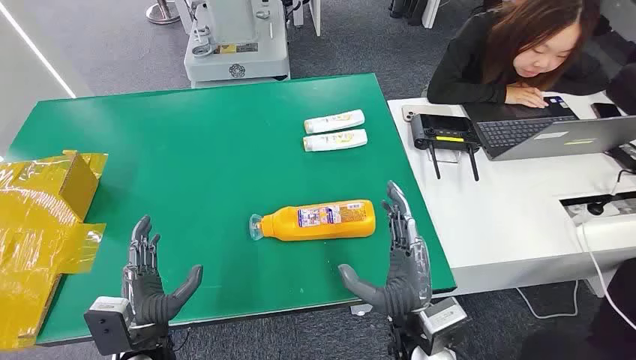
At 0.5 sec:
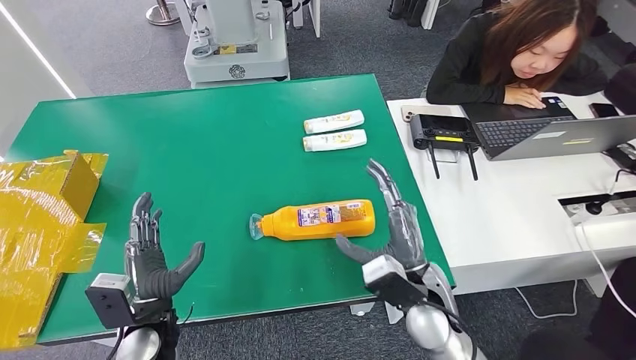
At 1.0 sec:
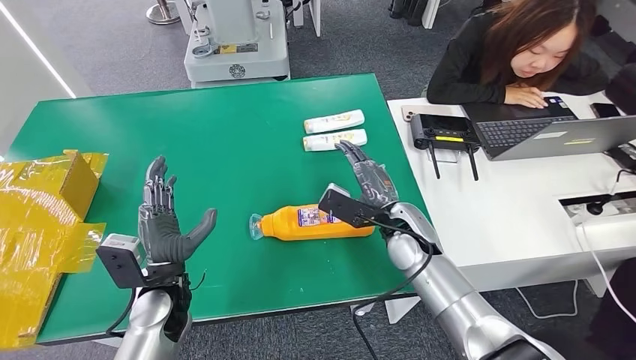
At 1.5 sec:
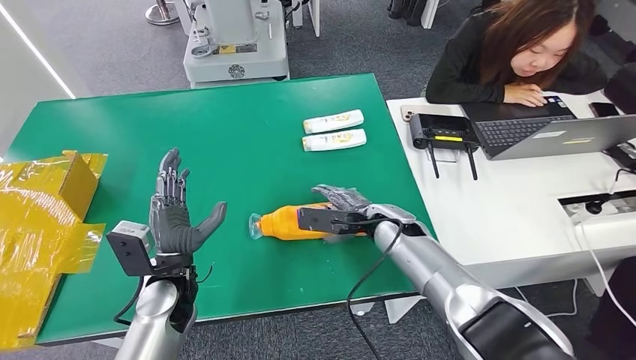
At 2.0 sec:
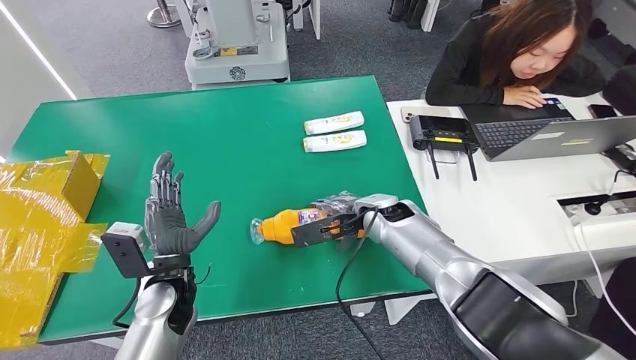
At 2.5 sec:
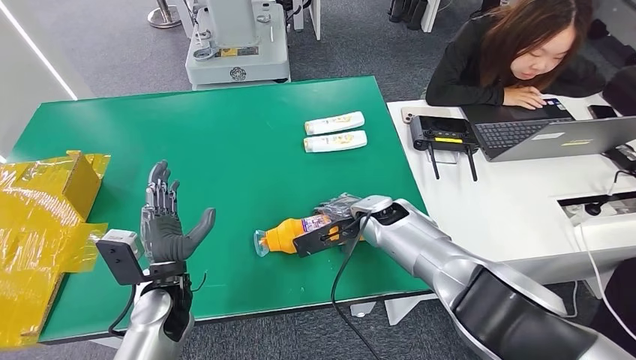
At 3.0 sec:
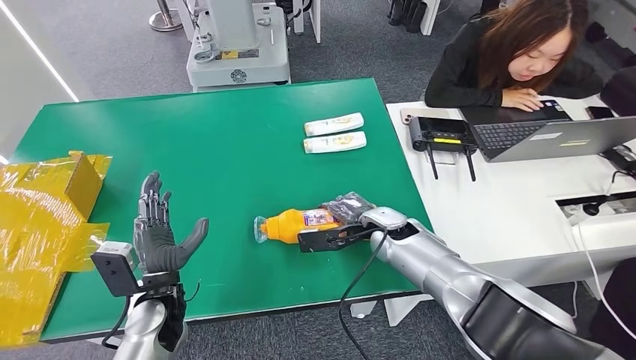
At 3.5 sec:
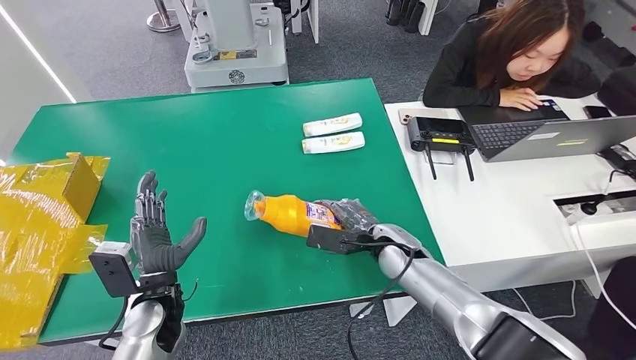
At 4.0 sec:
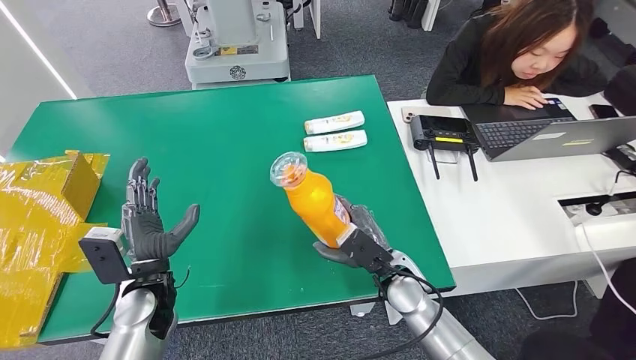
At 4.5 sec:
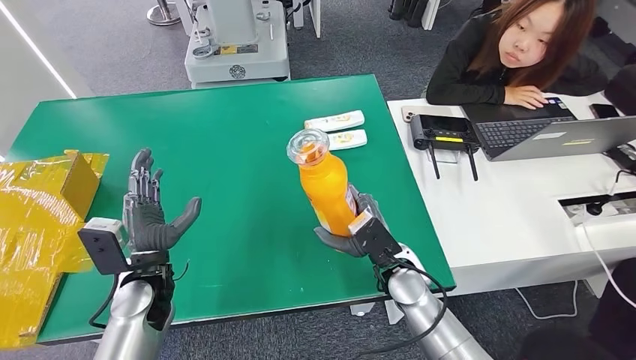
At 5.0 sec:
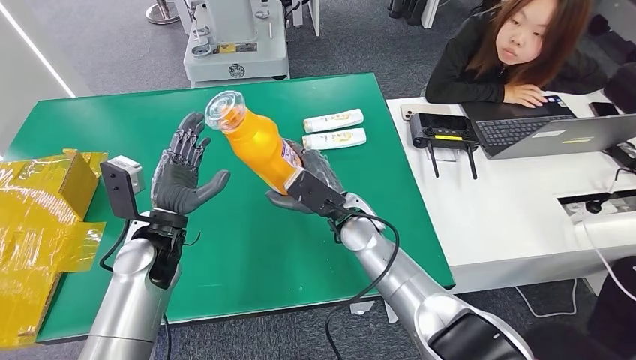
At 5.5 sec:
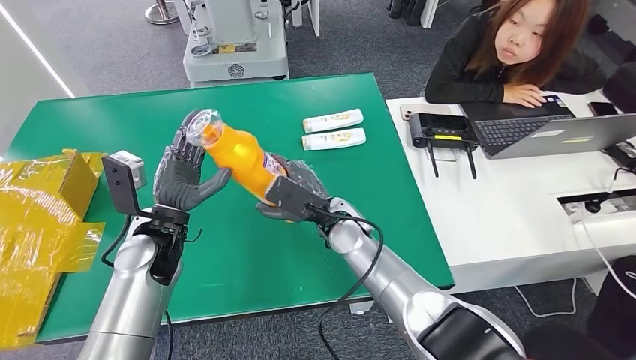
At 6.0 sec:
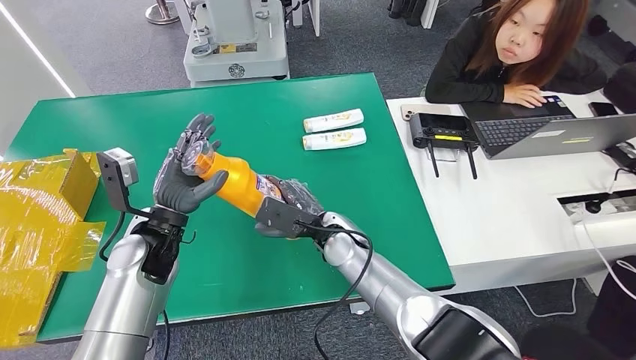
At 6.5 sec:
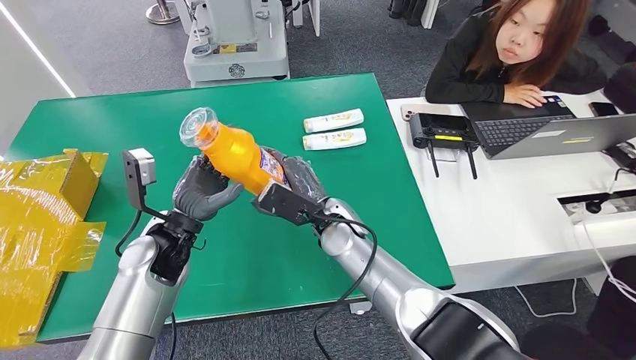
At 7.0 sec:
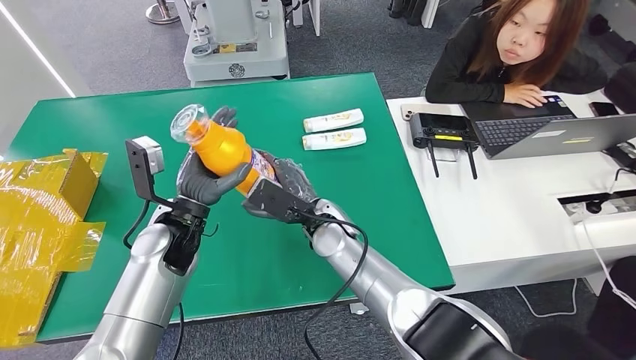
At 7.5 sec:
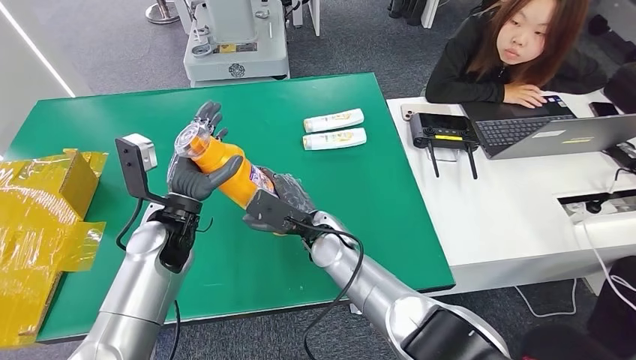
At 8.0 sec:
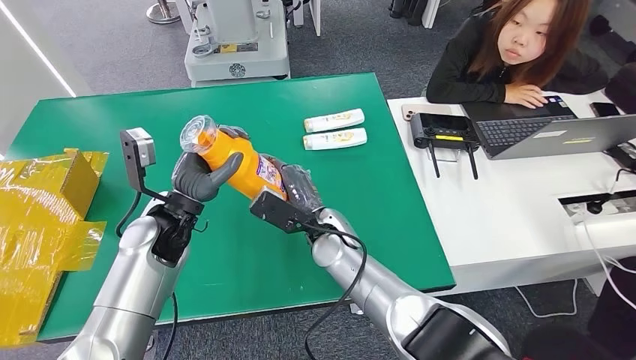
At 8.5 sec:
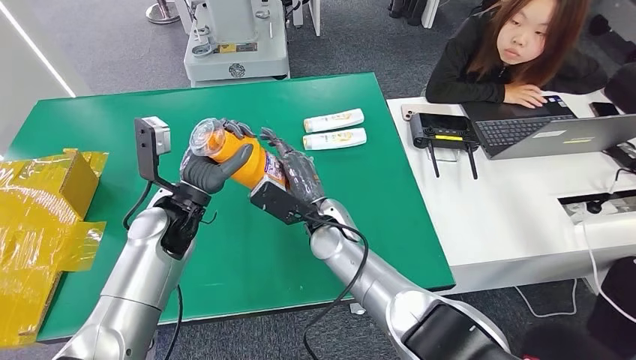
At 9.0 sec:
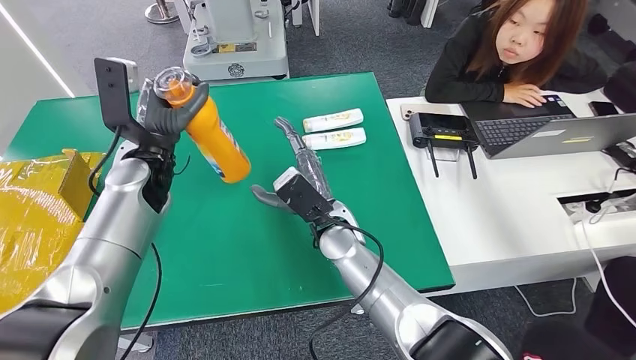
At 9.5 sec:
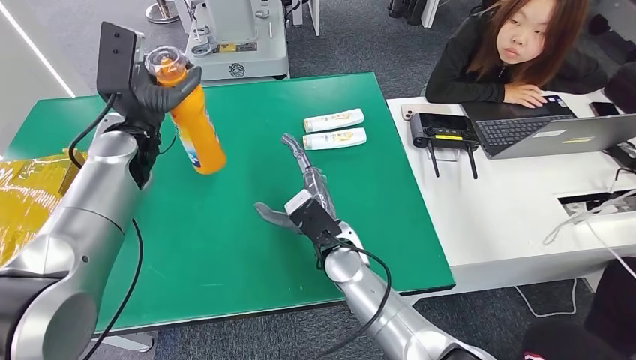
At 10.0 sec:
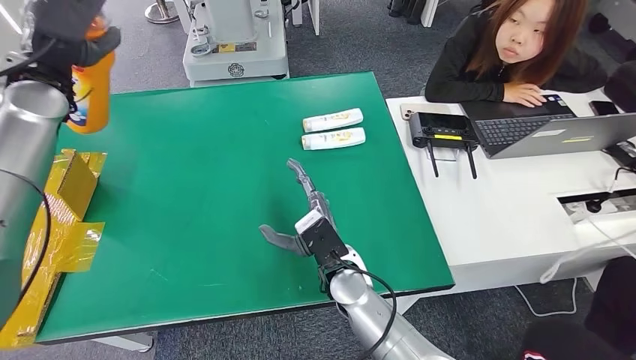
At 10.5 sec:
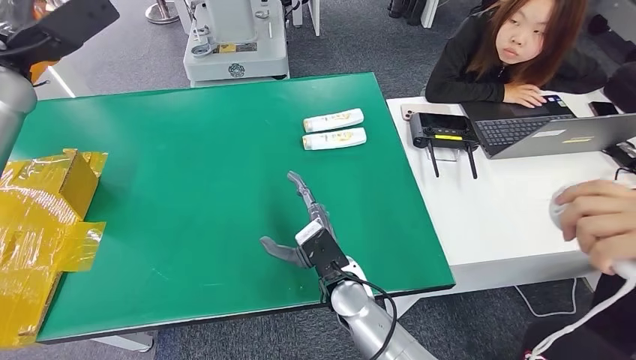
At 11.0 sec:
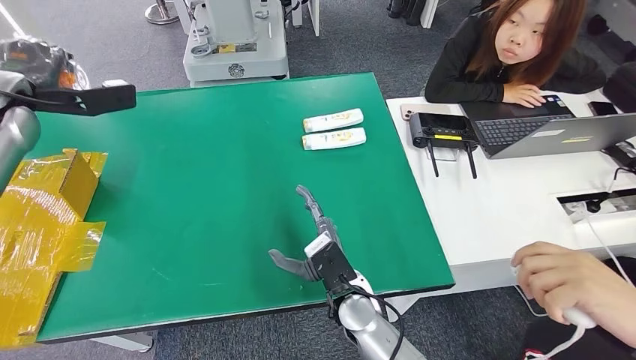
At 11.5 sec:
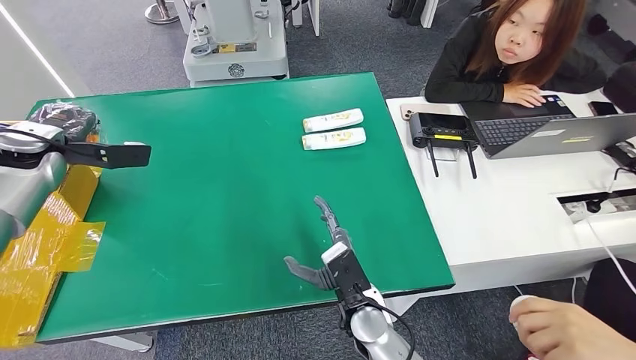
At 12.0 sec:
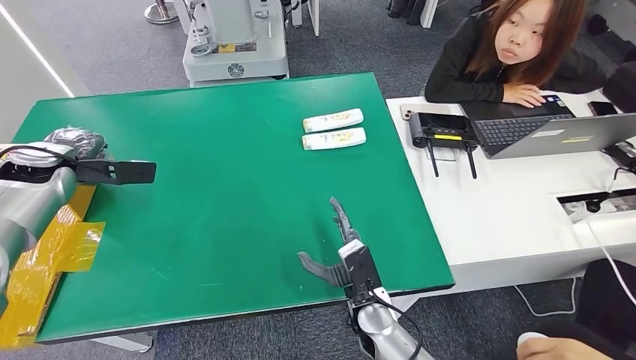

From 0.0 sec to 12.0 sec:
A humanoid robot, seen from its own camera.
Step, from 0.0 sec to 4.0 sec: Pick up the bottle from the table.
From 2.0 sec to 4.0 sec: The right hand is displaced backward and downward by some 15 cm.
From 6.0 sec to 8.0 sec: The hands make only small movements.
From 10.0 sec to 12.0 sec: The left hand moves downward and to the left, some 15 cm, while the right hand is displaced downward and backward by approximately 10 cm.

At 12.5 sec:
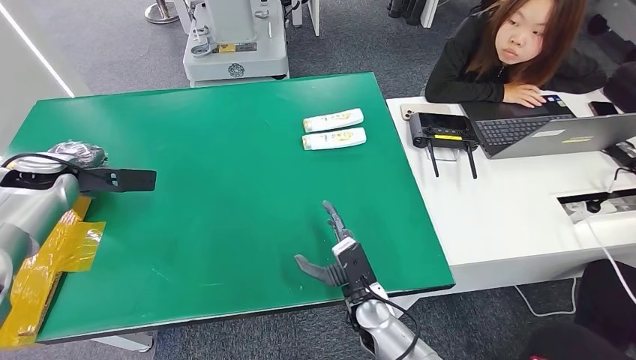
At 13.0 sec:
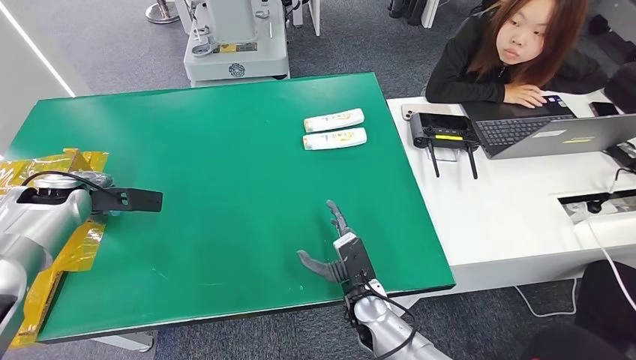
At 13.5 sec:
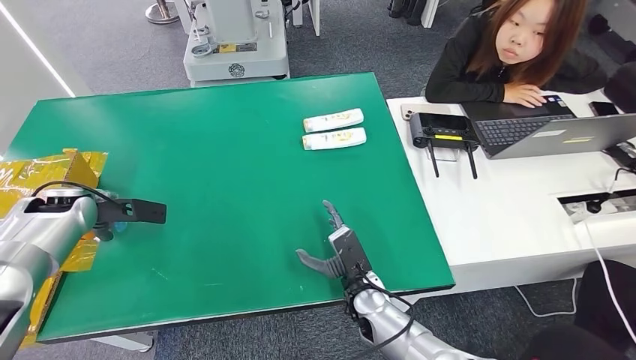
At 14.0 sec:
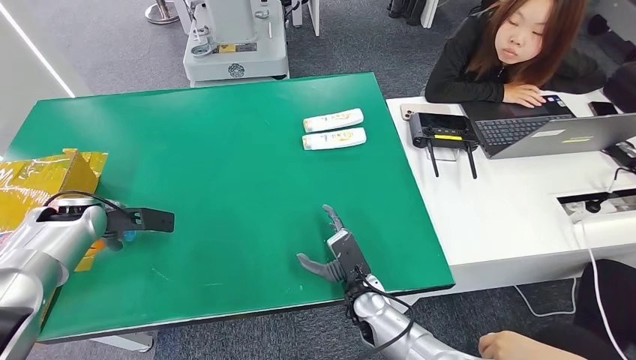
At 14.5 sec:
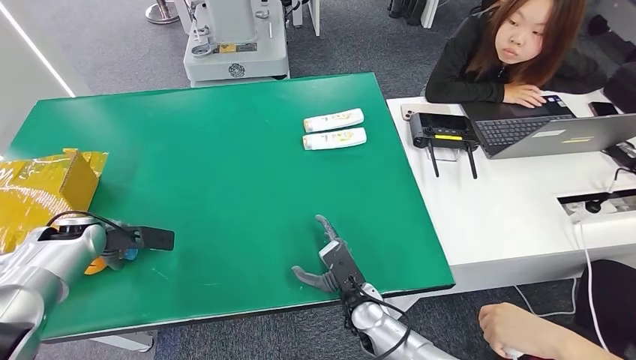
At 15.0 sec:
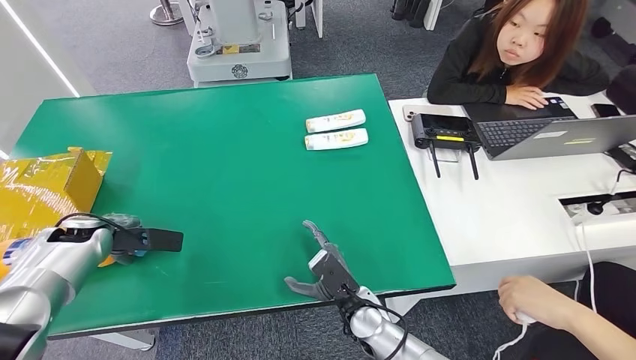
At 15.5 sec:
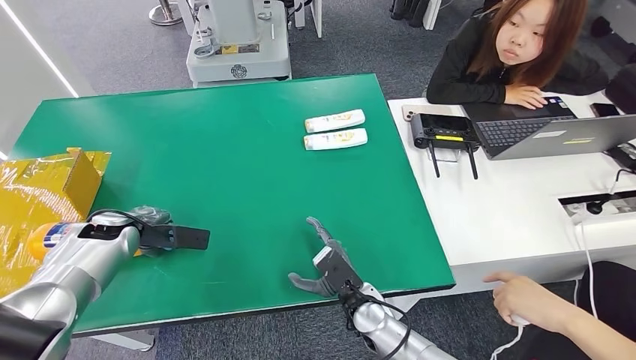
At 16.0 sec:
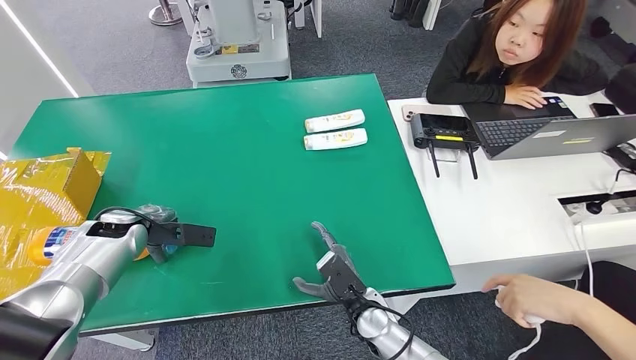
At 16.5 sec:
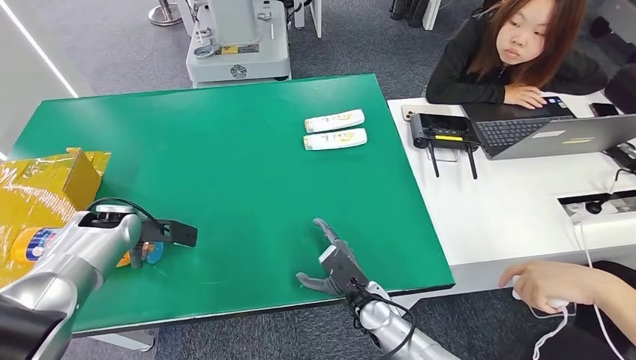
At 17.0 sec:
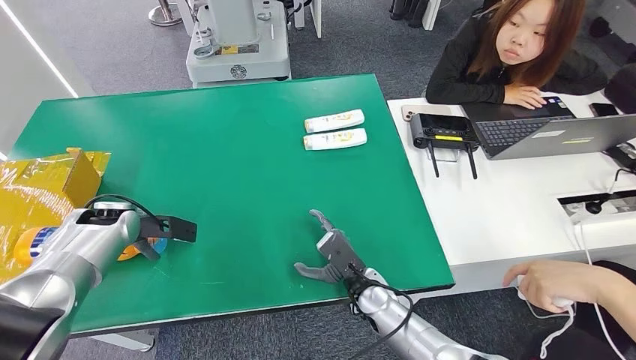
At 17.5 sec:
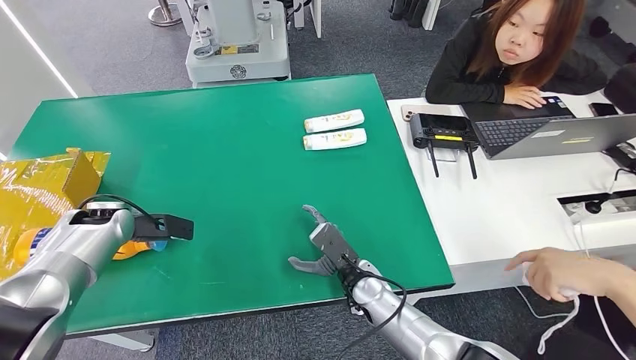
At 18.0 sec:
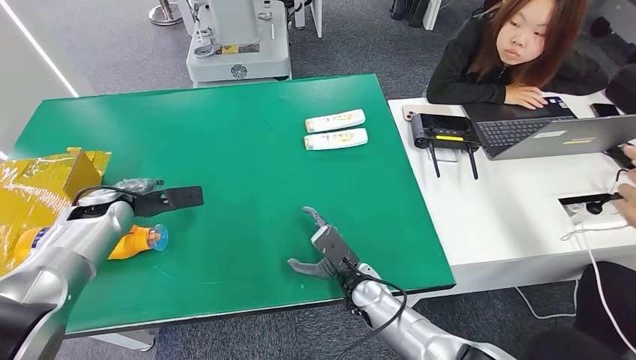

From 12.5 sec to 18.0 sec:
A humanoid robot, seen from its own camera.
Step, from 12.5 sec to 18.0 sec: Turn the bottle to the front side.
From 12.5 sec to 14.5 sec: The left hand goes about 10 cm downward.
From 14.5 sec to 16.0 sec: The left hand moves to the right, about 10 cm.

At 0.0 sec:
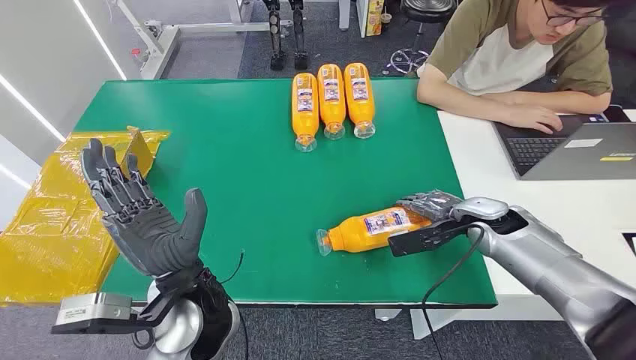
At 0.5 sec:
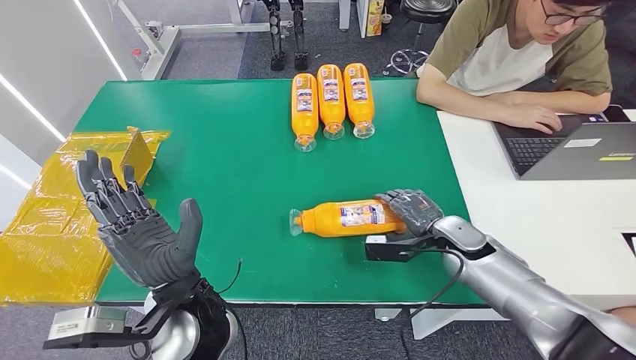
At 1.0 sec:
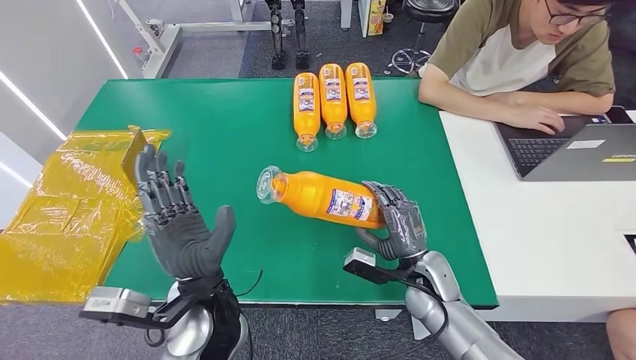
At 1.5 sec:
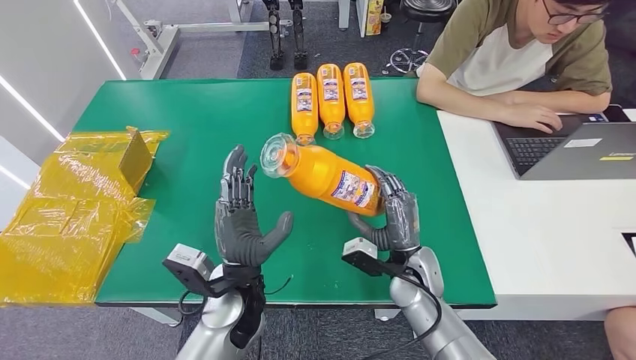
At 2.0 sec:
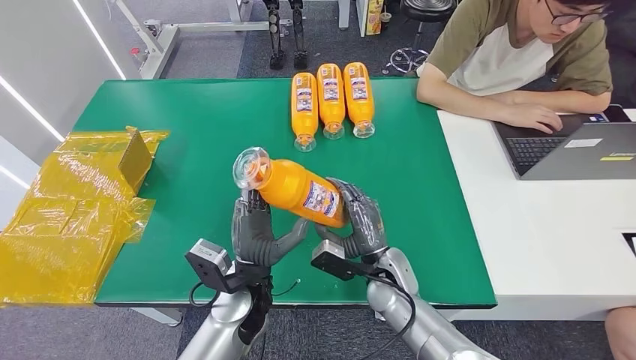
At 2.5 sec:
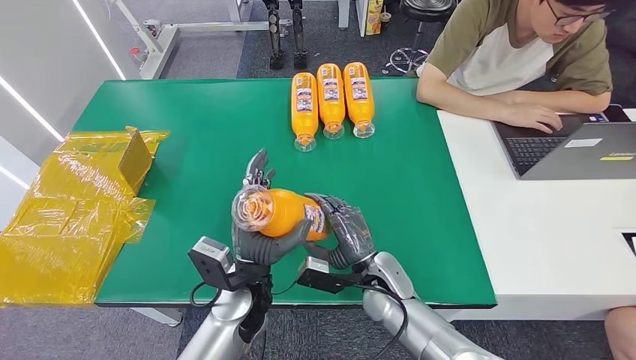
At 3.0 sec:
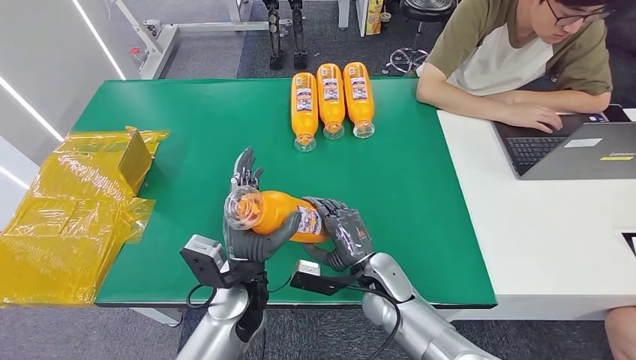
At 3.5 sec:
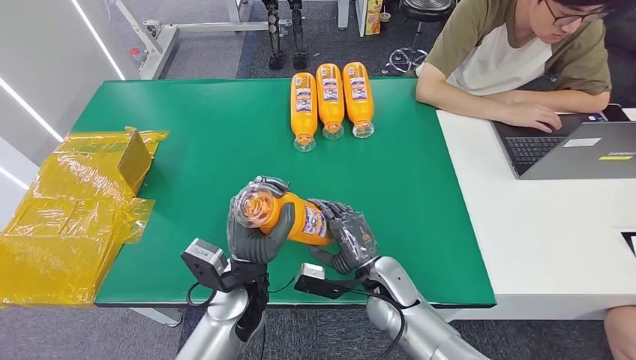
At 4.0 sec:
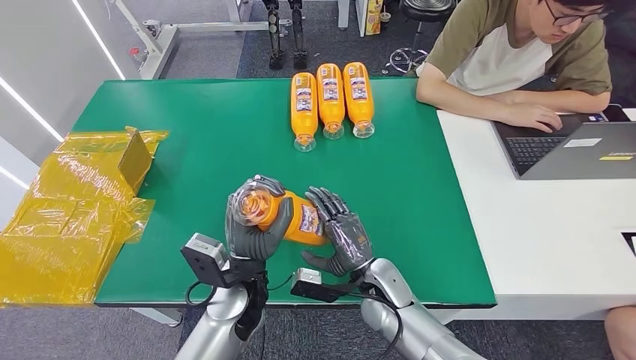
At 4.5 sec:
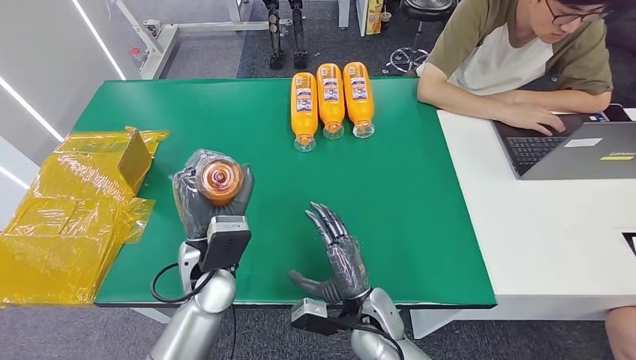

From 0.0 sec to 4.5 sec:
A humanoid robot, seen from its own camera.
Step, from 0.0 sec to 2.0 sec: Pick up the bottle from the table.
From 2.0 sec to 4.5 sec: The right hand moves backward, roughly 5 cm, while the left hand changes place by about 5 cm.
